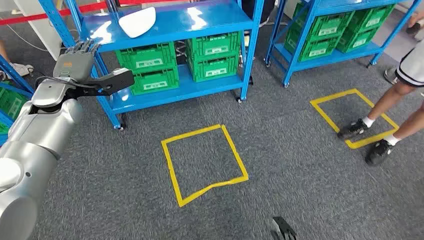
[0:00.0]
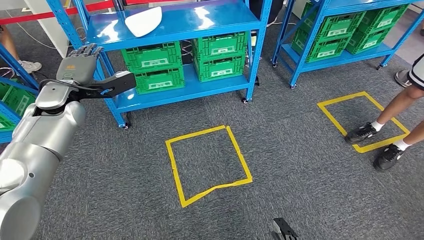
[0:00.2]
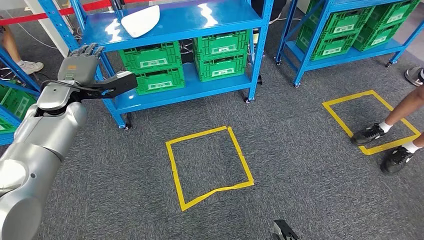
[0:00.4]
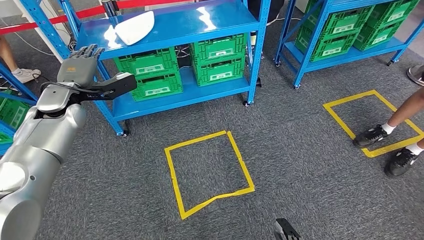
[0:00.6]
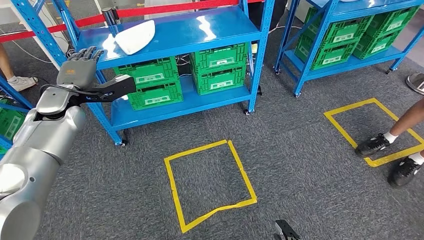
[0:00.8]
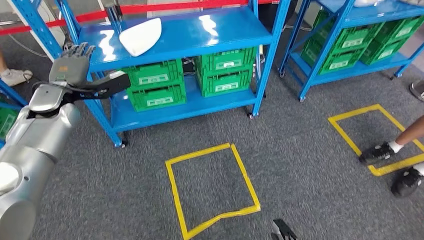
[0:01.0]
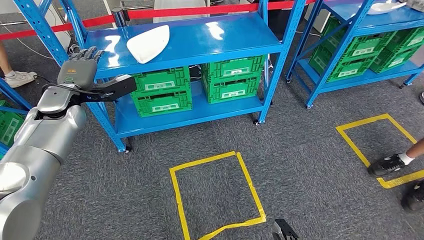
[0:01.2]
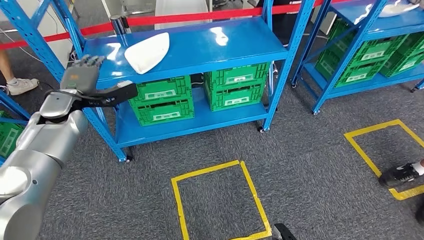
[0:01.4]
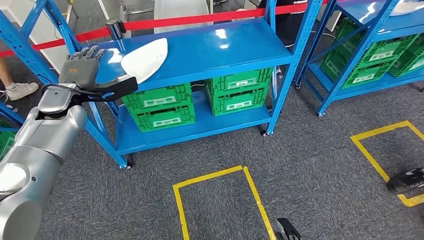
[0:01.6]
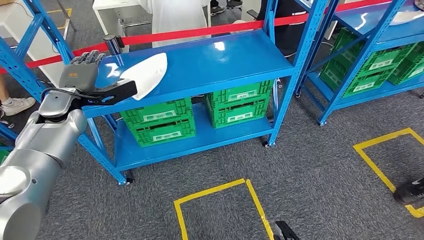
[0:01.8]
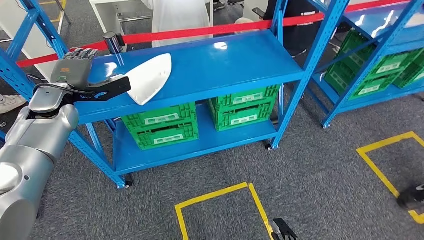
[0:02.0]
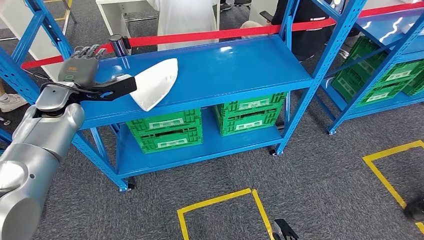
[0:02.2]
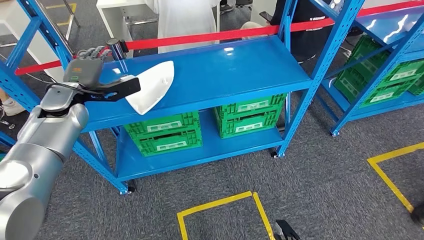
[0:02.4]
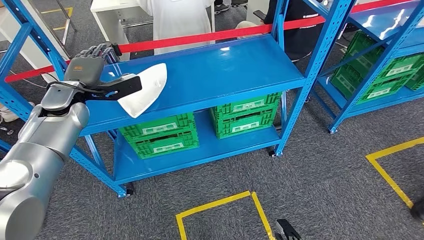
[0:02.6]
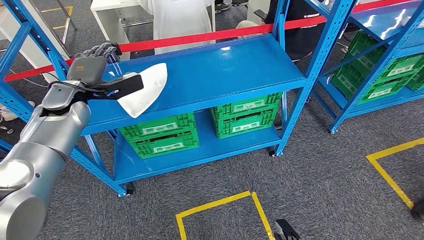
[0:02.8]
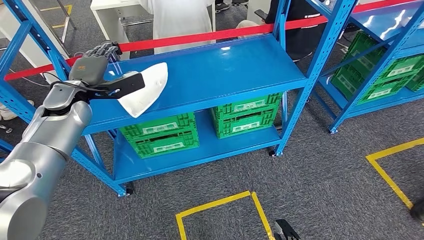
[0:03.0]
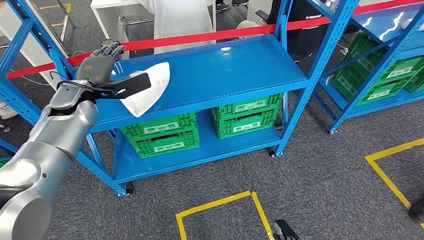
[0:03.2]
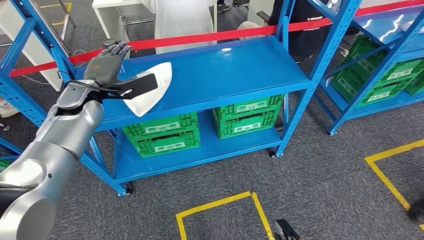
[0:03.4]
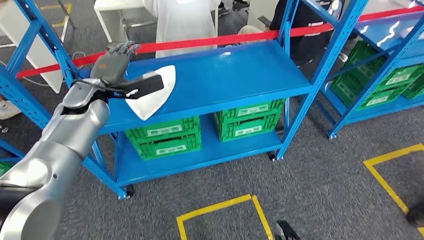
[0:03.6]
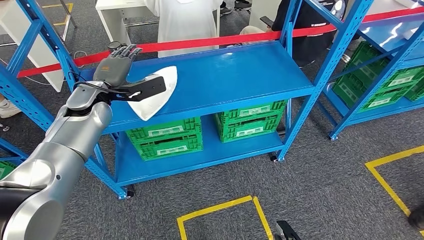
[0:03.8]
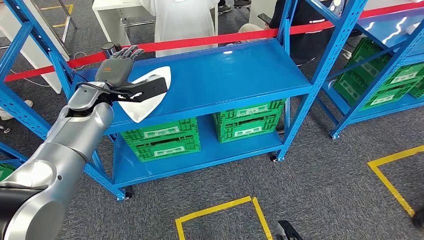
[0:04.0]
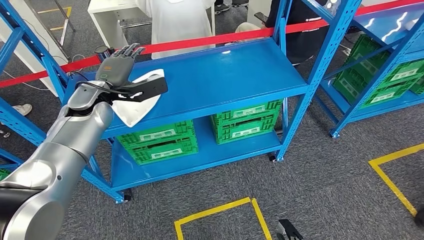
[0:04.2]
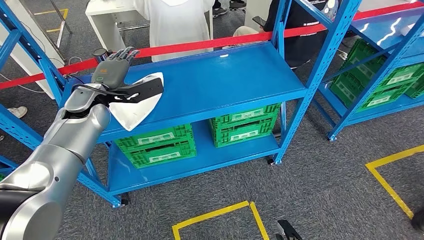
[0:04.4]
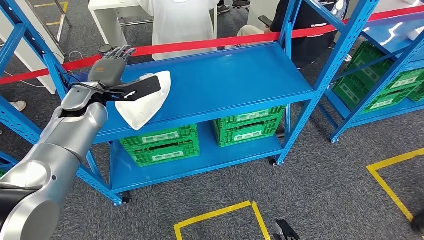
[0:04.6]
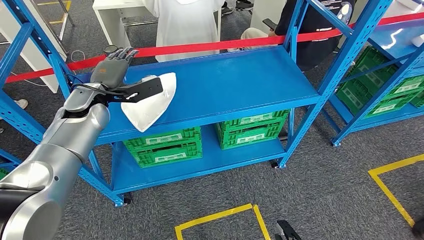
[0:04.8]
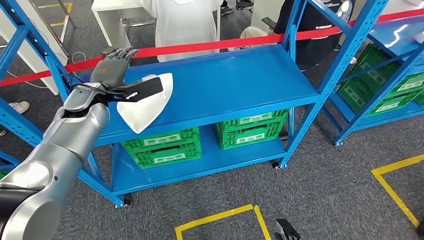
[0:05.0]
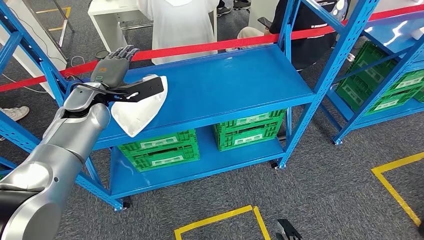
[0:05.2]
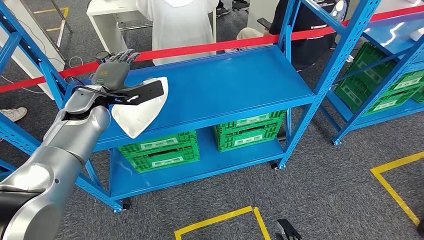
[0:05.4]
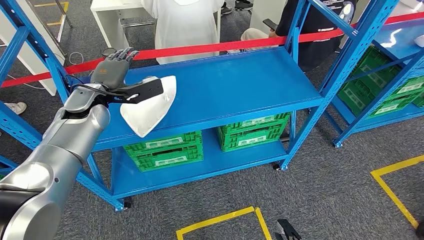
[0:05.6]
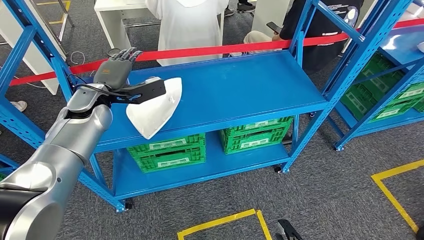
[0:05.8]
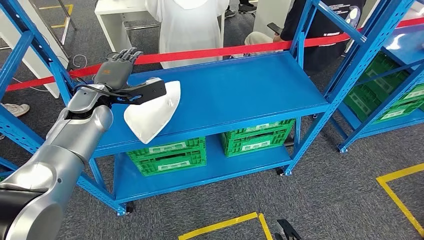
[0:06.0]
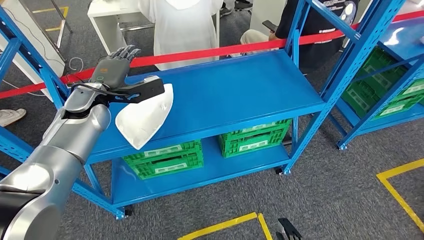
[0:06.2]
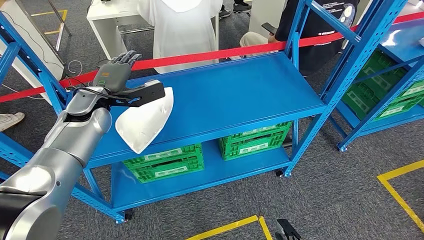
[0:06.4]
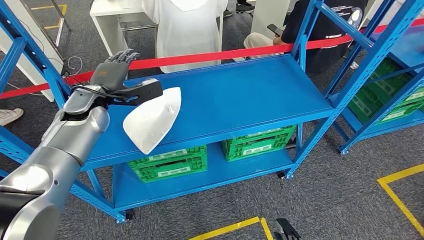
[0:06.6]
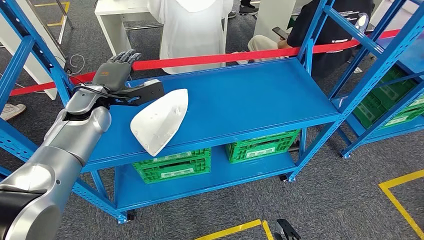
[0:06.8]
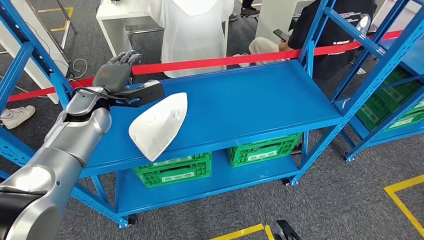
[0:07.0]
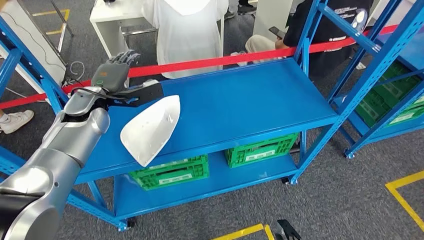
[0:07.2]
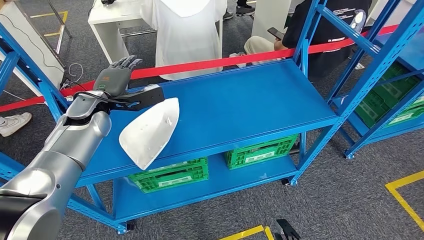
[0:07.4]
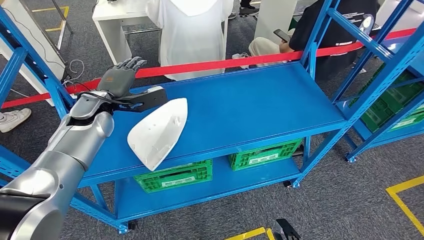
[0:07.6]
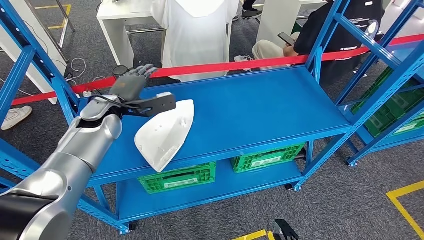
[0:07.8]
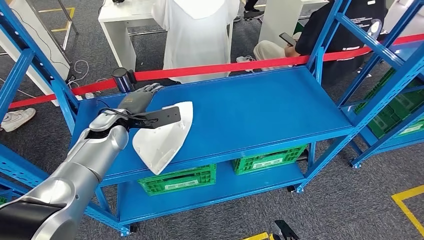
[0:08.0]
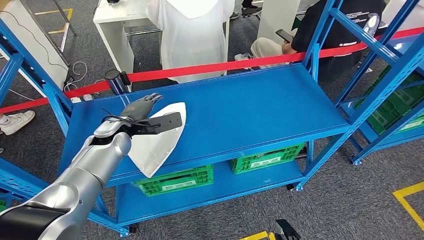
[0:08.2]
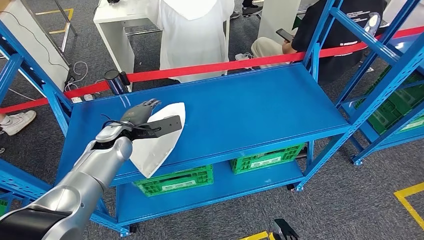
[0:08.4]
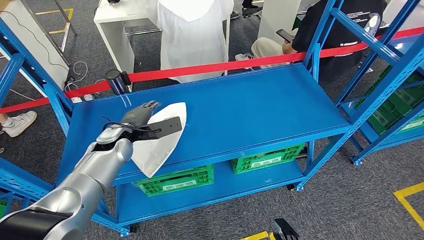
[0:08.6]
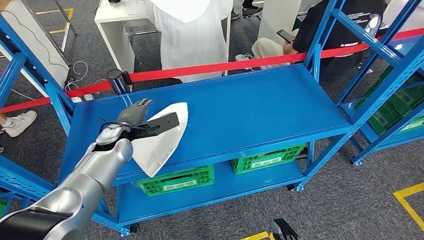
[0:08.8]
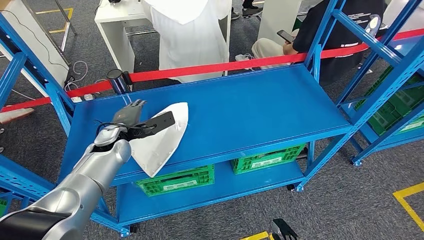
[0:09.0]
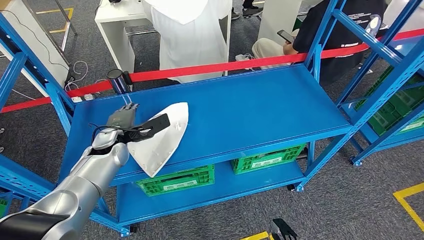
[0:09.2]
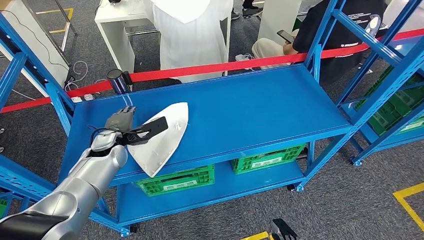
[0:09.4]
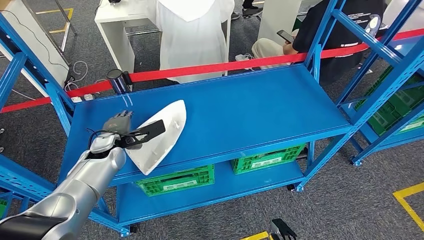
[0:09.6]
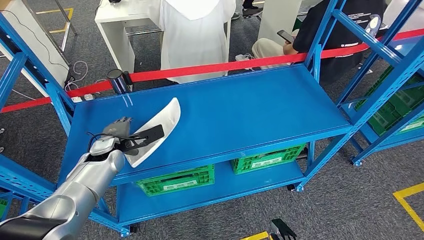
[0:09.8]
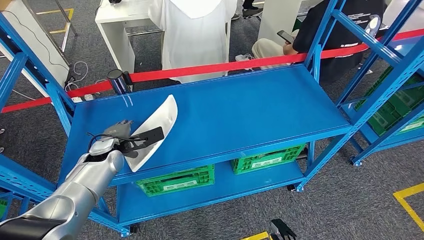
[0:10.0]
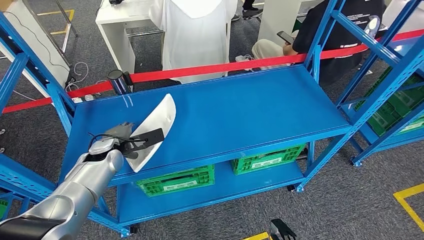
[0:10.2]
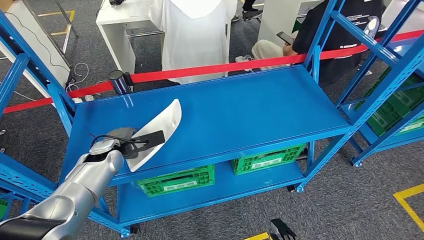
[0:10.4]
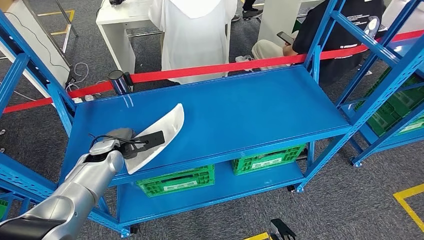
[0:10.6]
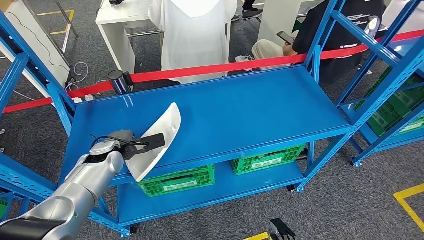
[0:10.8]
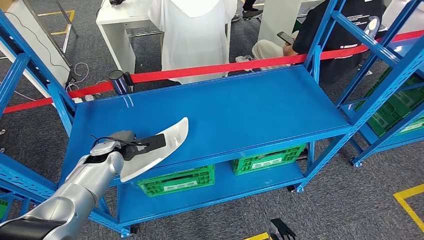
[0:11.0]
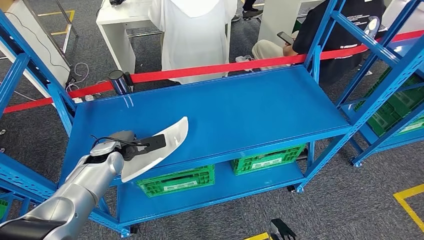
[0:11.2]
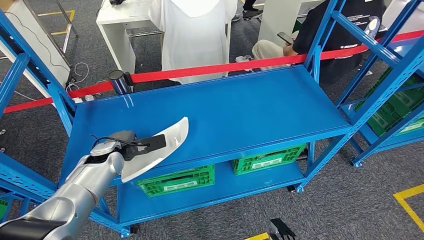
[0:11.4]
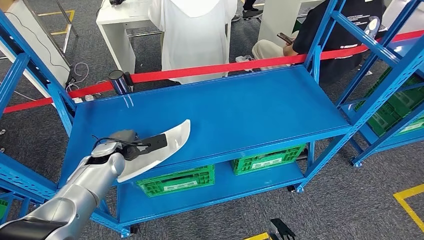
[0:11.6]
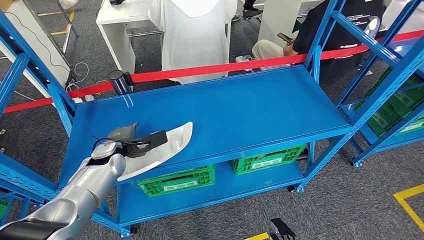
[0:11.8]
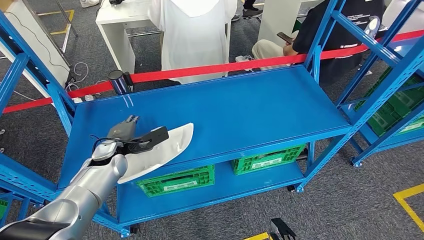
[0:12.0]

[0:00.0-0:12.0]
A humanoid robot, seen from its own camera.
0:09.0 to 0:10.4: There are only small adjustments of the hands.
0:10.4 to 0:12.0: The hands move only a little.

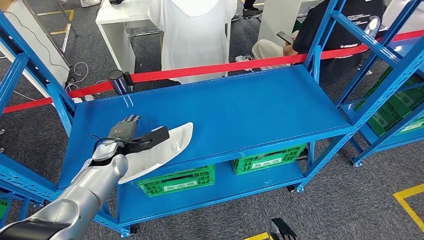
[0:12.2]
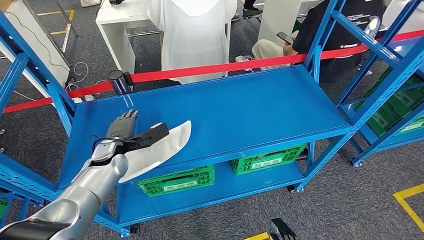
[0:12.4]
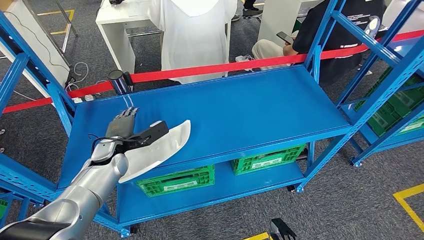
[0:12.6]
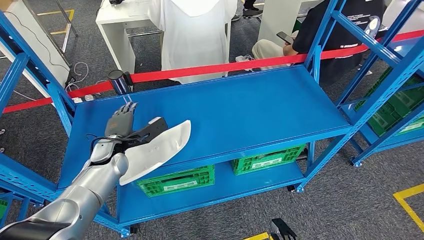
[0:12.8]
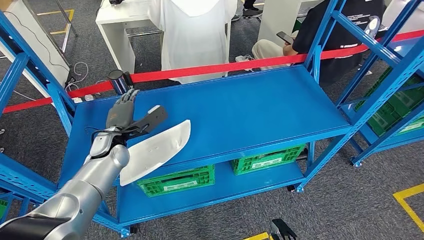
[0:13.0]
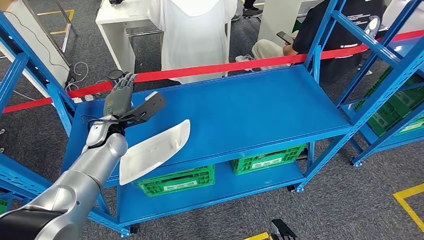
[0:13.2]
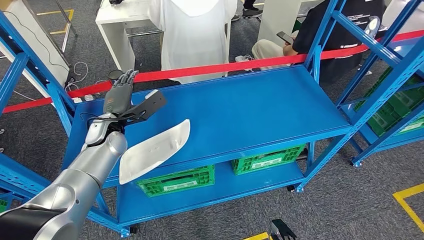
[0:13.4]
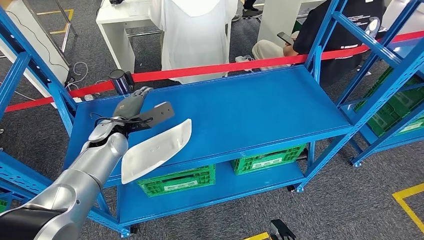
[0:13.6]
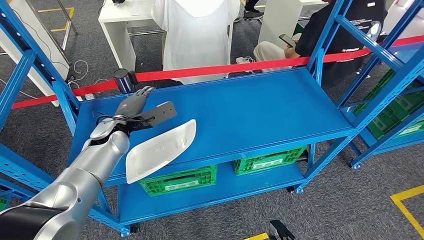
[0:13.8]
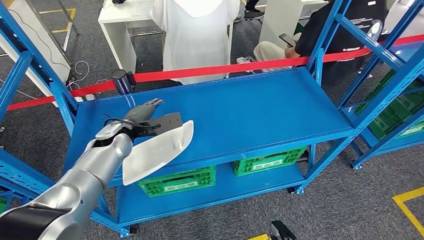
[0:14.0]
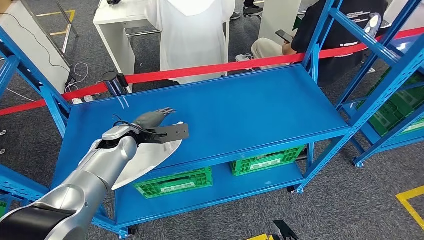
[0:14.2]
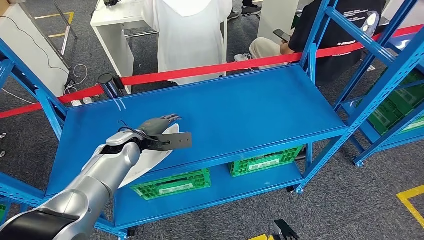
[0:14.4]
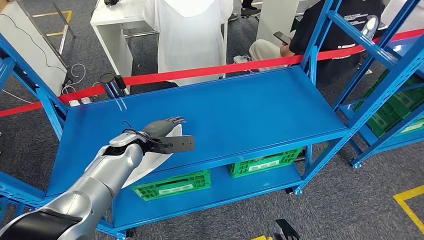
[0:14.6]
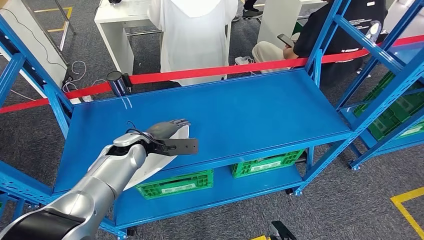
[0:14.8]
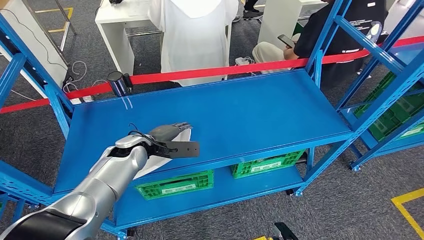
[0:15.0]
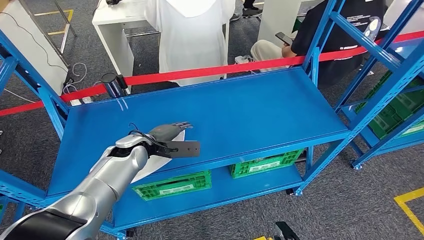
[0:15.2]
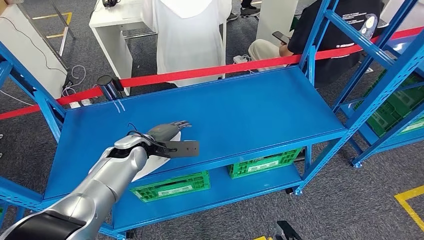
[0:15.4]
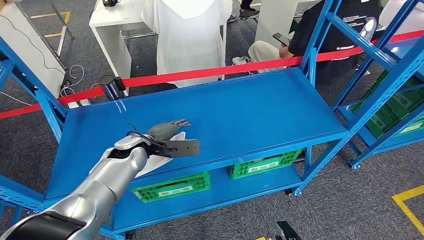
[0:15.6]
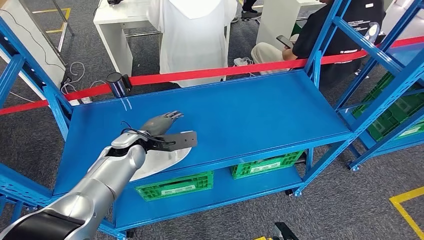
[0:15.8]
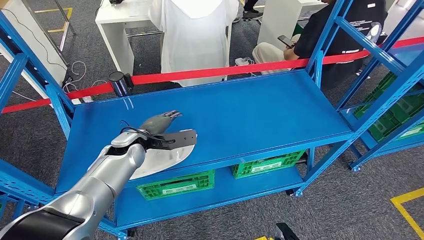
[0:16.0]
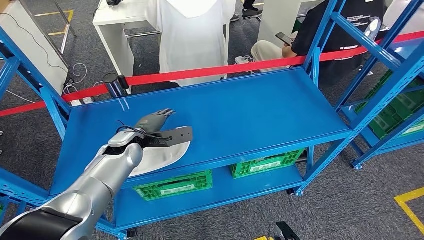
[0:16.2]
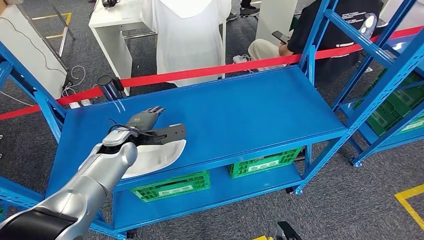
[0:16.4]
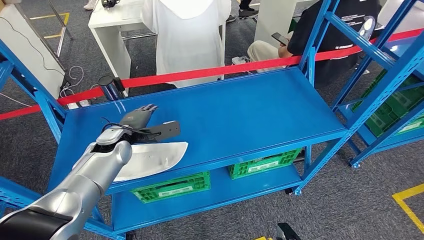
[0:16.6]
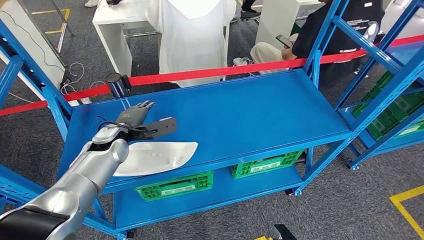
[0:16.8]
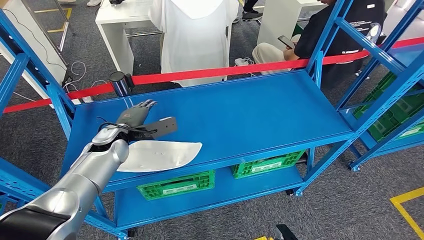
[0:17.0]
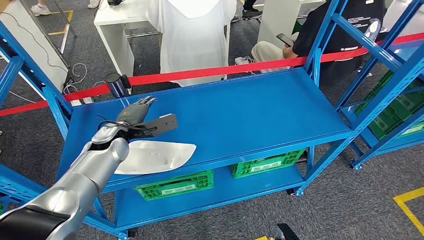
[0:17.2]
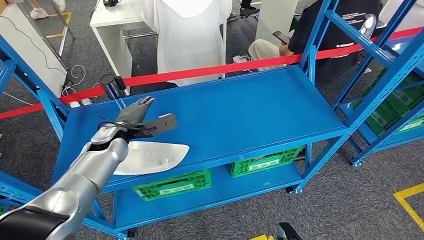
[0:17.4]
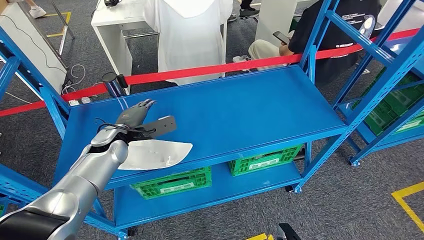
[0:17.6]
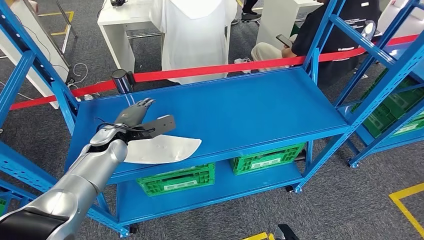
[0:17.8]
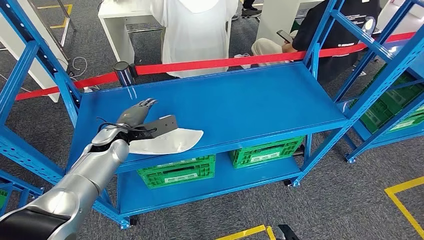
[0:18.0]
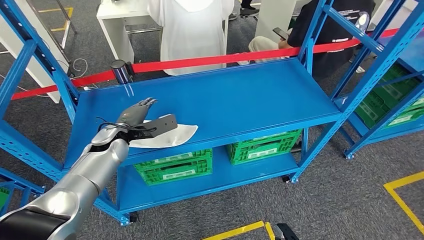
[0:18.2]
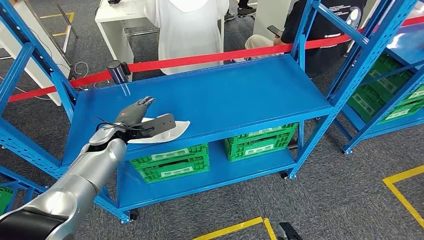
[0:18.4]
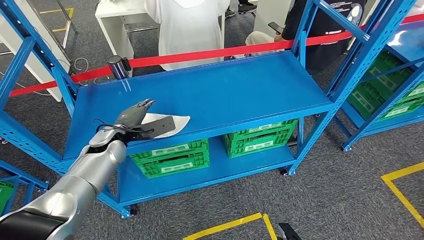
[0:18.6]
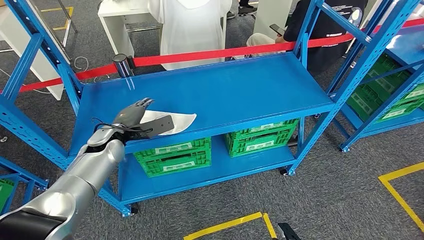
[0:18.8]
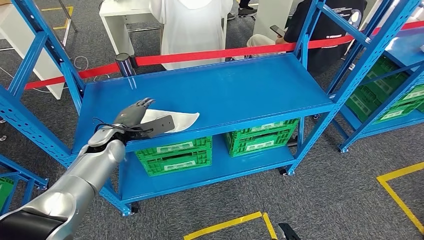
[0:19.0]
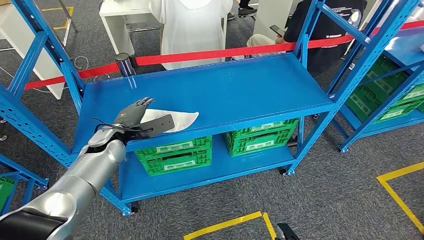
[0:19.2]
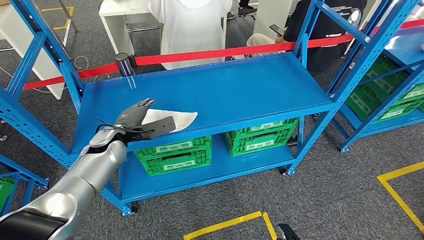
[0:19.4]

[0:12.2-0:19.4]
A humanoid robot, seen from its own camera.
0:12.2 to 0:13.6: The left hand is displaced upward by approximately 5 cm.
